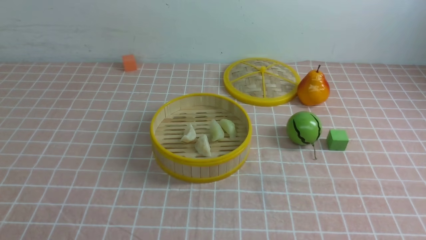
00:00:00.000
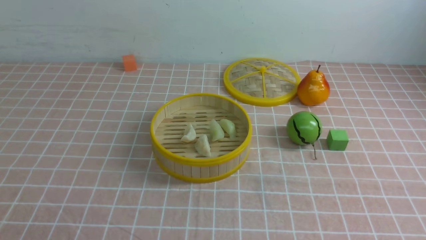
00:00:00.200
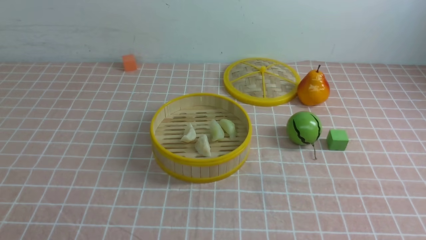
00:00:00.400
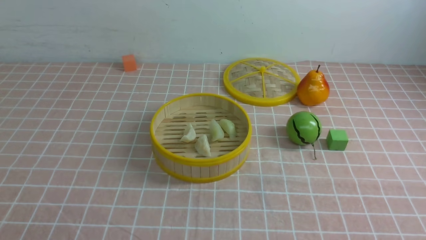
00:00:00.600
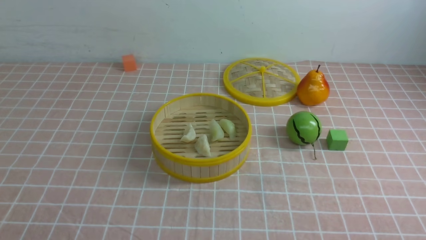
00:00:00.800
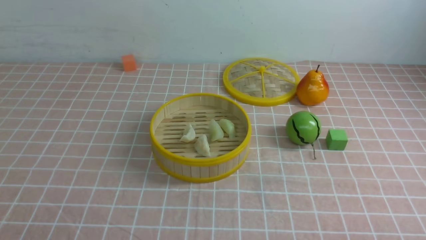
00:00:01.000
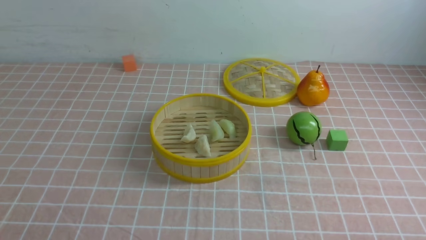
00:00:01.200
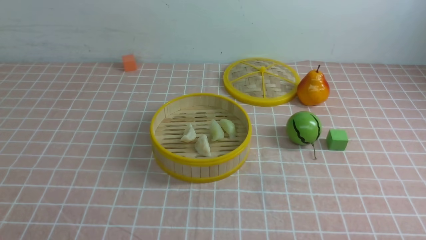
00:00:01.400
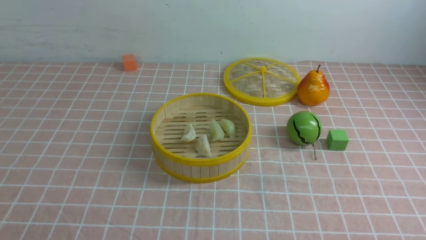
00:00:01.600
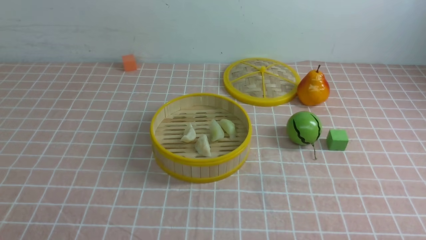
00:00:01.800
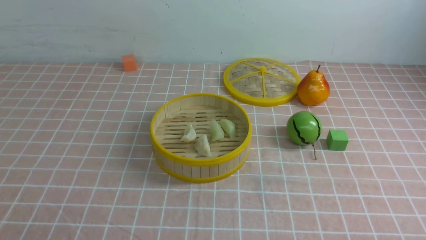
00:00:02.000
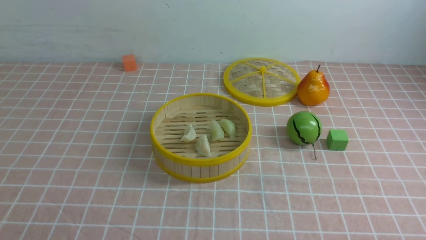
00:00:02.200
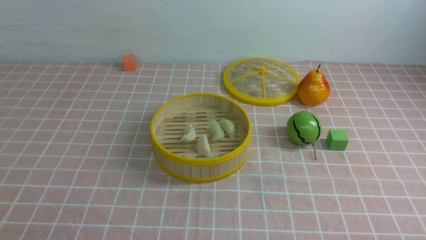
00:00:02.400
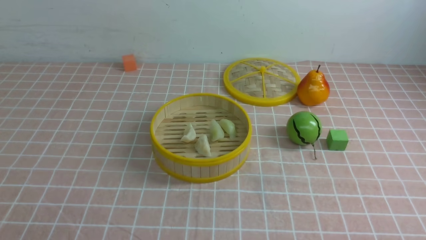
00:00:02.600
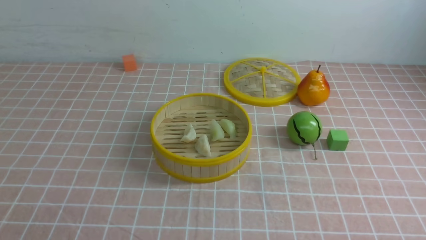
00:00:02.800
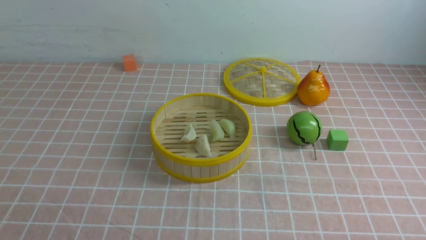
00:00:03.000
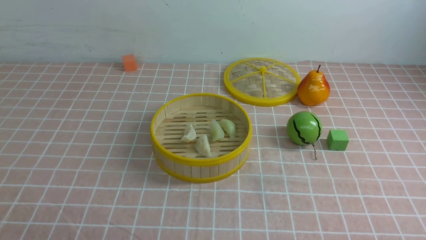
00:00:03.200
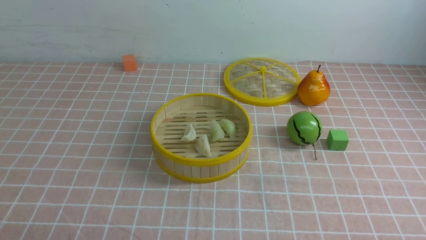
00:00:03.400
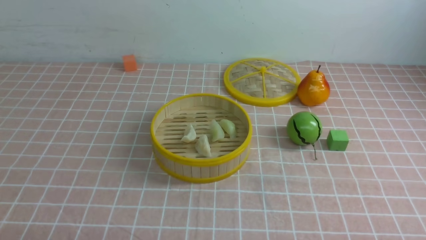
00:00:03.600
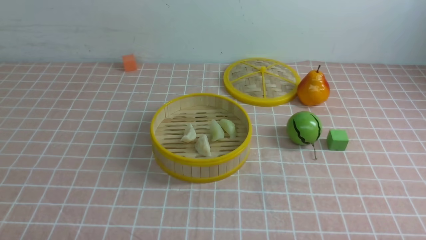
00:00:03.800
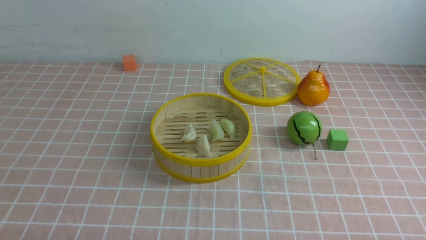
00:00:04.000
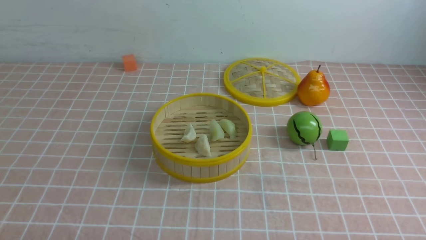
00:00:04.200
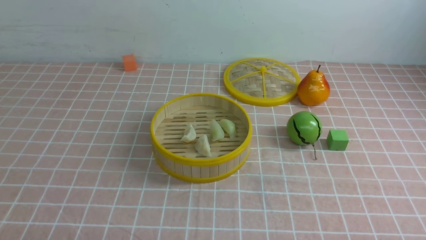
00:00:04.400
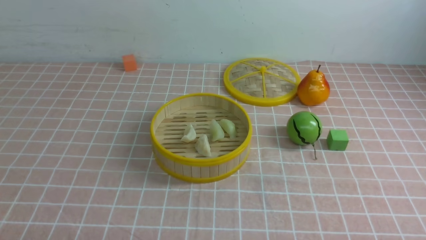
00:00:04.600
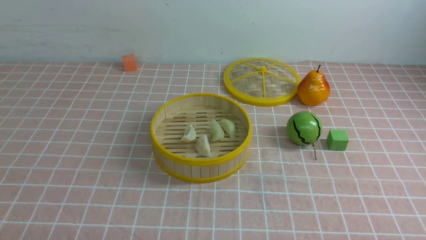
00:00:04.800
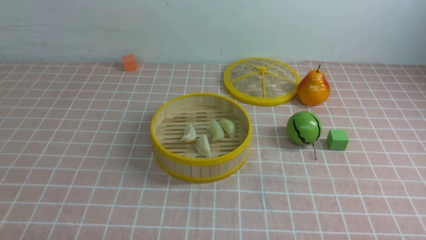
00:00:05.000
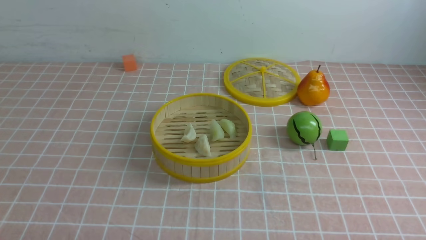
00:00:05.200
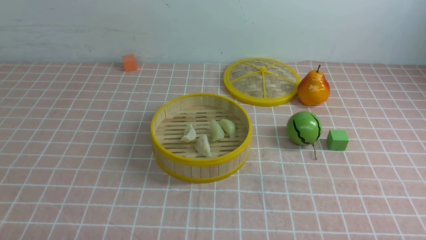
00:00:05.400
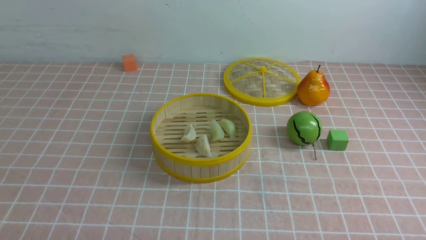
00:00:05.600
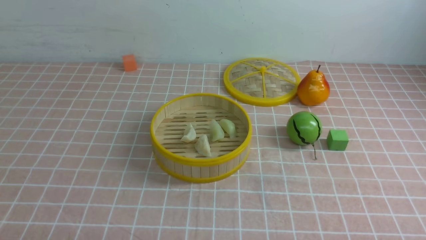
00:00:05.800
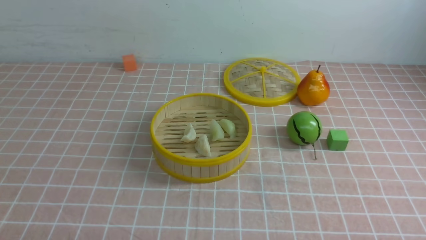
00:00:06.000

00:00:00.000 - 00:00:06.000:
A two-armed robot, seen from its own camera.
Task of the whole recording: put the dumplings into the steamer on the table with the pink tablecloth.
00:00:04.400 - 00:00:06.000: The two grippers keep their place.
